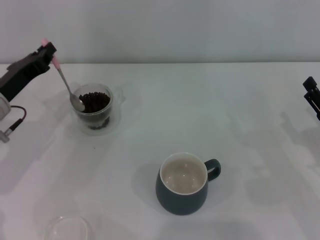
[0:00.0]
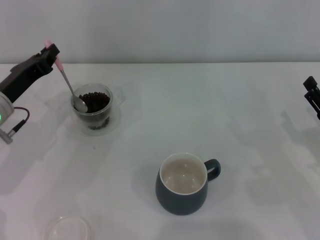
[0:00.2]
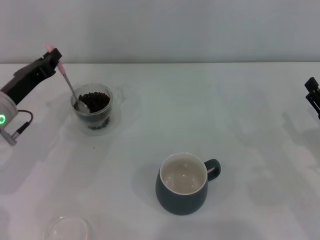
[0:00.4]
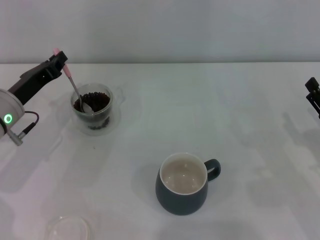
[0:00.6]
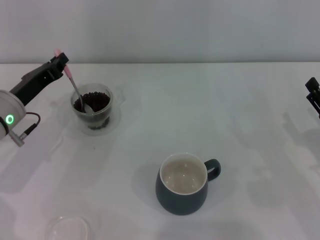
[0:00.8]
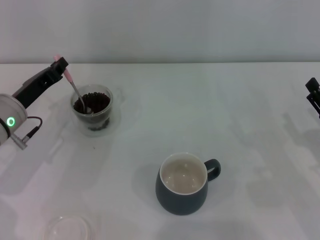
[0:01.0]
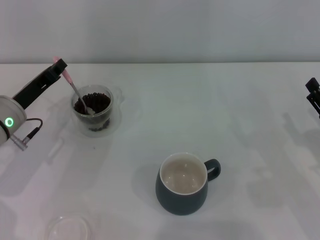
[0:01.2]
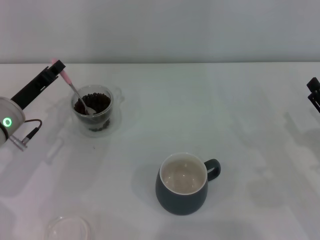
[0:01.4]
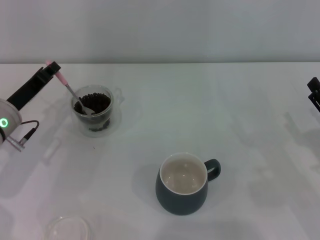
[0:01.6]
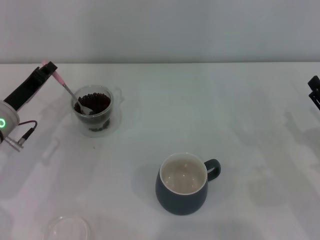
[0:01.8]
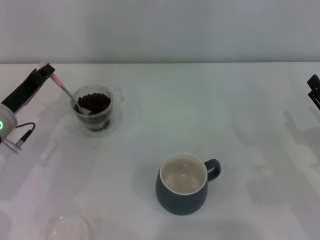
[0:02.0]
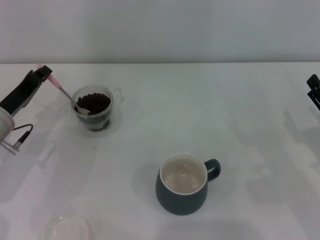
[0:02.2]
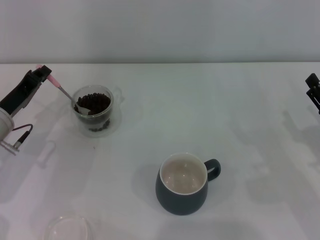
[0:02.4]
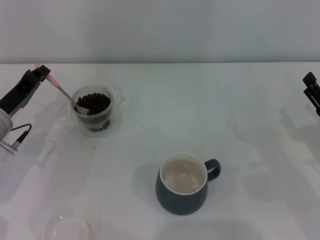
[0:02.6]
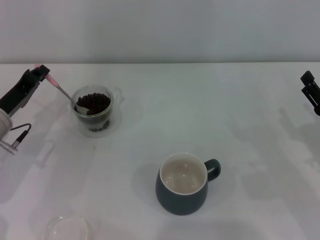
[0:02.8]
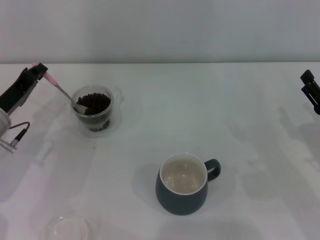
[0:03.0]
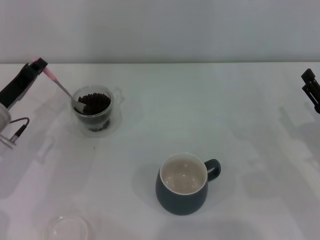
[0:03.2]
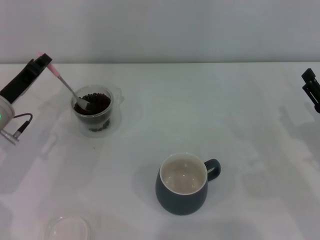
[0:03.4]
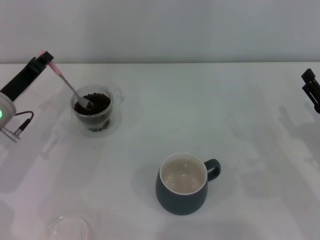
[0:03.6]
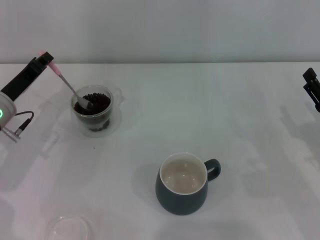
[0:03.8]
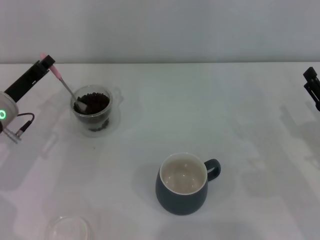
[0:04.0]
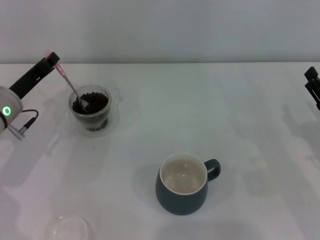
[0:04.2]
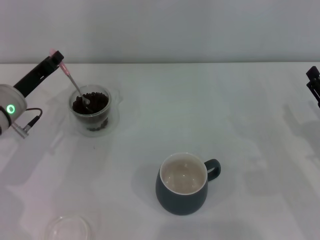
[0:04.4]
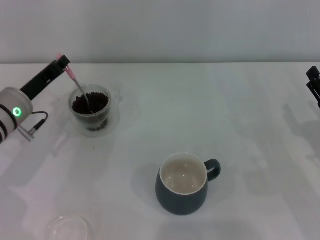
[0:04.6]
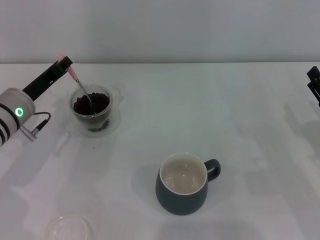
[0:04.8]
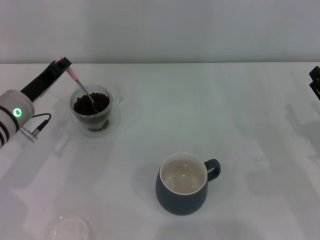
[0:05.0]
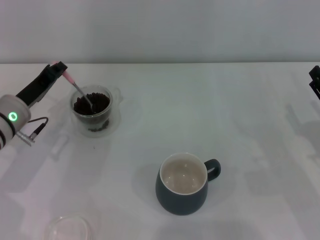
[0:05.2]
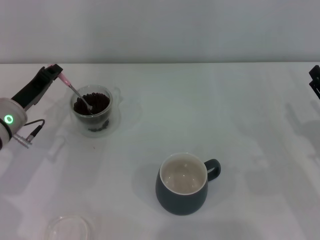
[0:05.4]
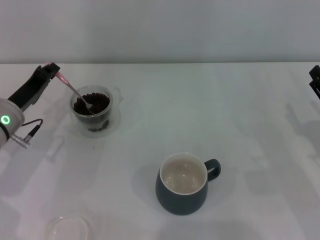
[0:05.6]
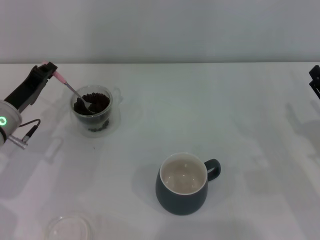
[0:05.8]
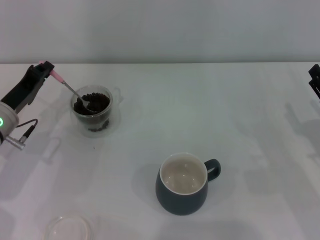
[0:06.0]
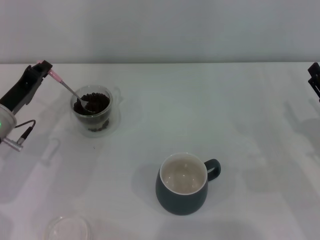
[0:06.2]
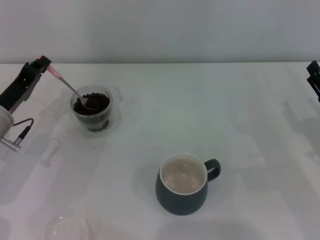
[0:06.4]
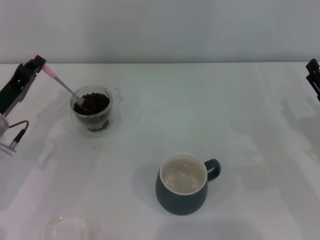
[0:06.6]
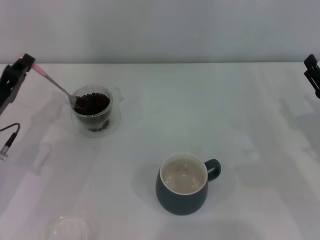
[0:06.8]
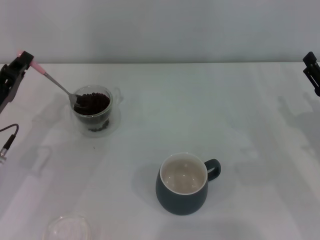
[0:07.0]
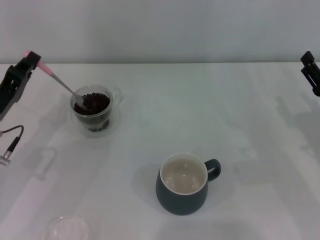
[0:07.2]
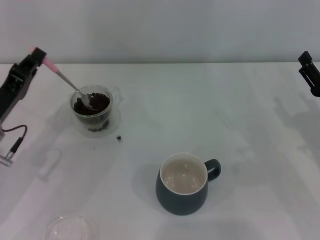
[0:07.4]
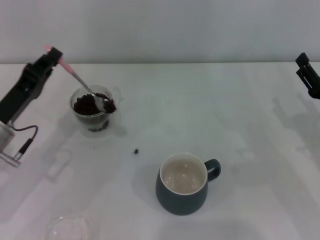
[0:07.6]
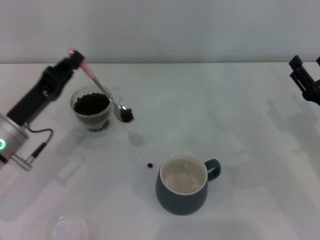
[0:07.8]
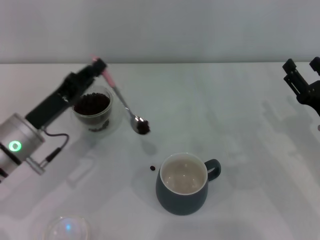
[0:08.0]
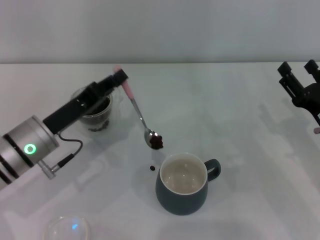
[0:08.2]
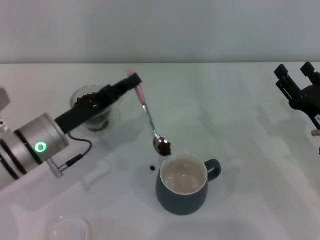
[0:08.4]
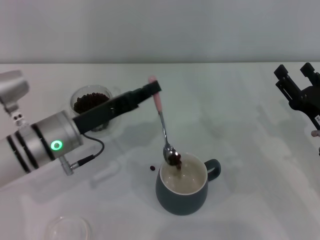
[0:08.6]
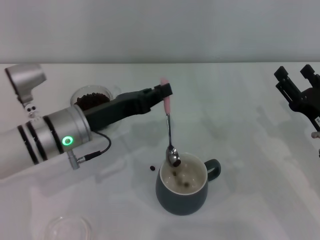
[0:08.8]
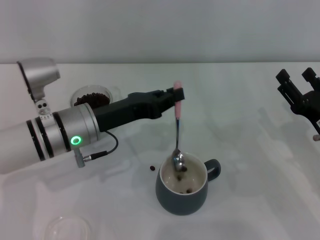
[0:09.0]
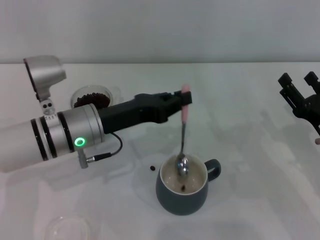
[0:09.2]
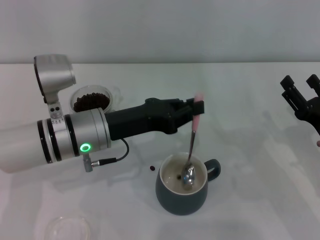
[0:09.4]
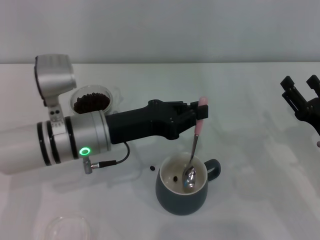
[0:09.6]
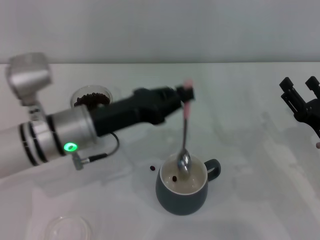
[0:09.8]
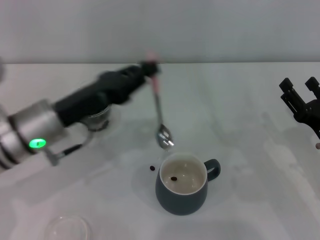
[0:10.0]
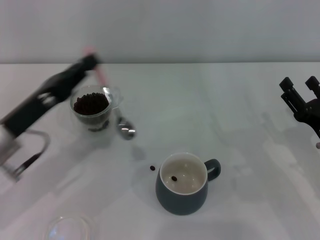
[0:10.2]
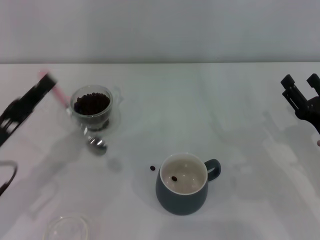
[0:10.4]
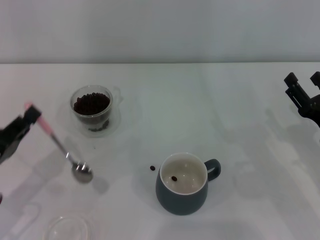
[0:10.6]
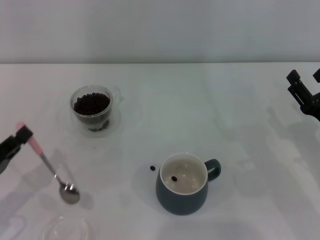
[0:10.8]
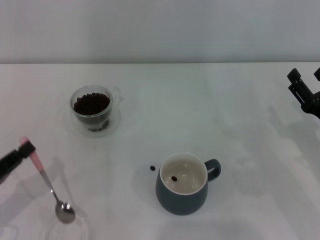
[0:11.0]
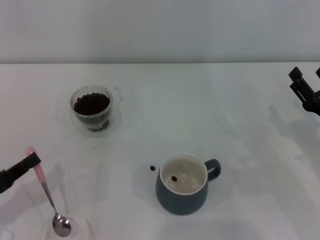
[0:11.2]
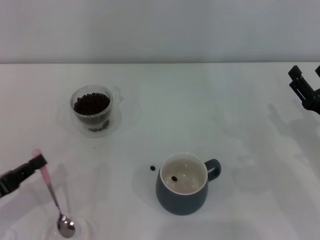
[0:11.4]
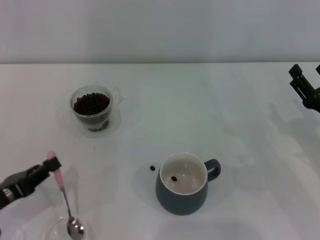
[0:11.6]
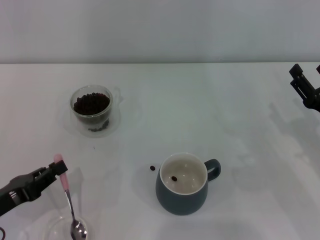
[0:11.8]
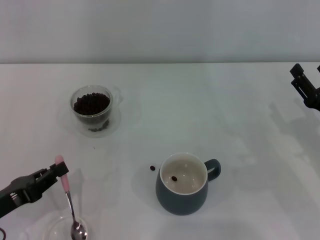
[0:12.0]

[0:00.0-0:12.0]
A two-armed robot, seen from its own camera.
Task of the whole recording: Use a pink spoon to take out the coffee beans from the glass and pour them into the gray cup.
Step, 0:00.0 to 0:09.8: Scoop a spoonful of beans into the cup with the right gripper.
0:01.6 to 0:06.0: The grippers make only small movements.
0:07.6 to 0:09.0: The left gripper shifts some 10 cm to the right.
0:09.0 to 0:10.4: The left gripper heads to the left and backward, covering roughly 15 cm.
0:10.4 to 0:12.0: The left gripper changes place by roughly 5 cm.

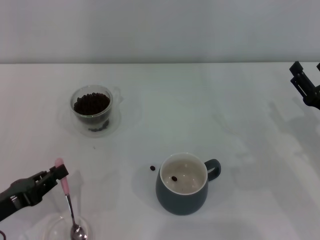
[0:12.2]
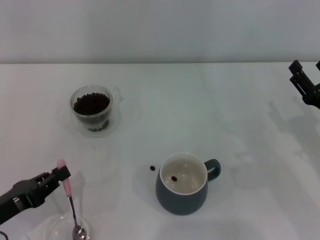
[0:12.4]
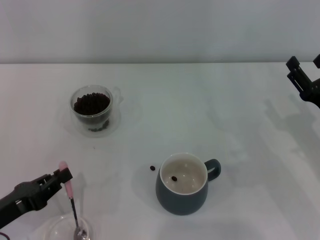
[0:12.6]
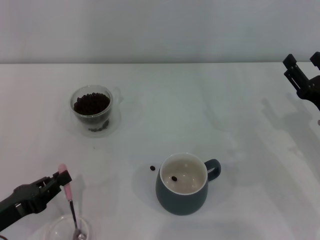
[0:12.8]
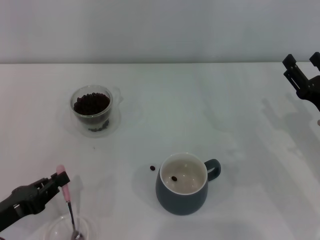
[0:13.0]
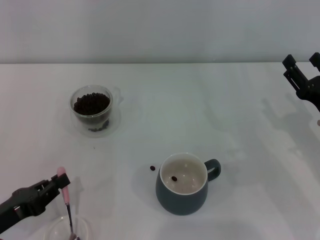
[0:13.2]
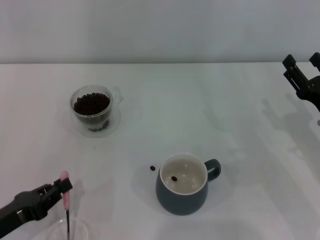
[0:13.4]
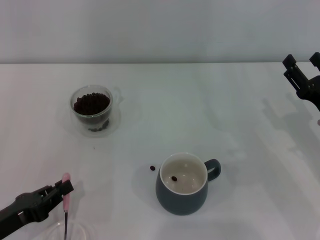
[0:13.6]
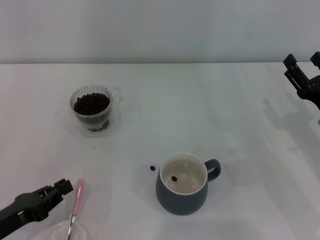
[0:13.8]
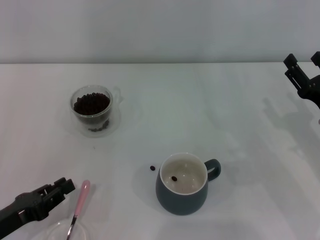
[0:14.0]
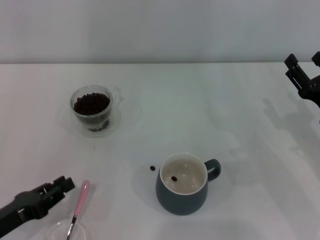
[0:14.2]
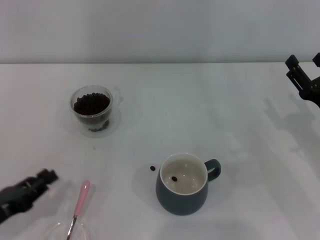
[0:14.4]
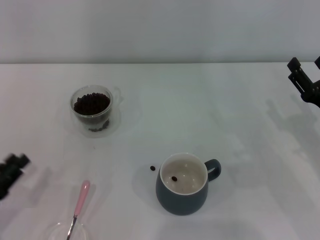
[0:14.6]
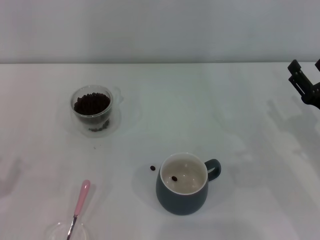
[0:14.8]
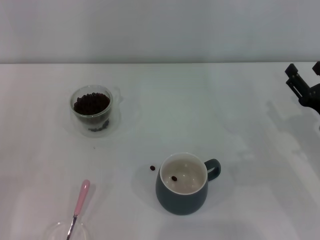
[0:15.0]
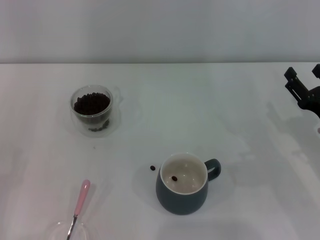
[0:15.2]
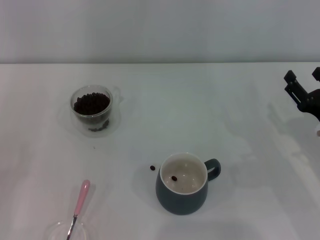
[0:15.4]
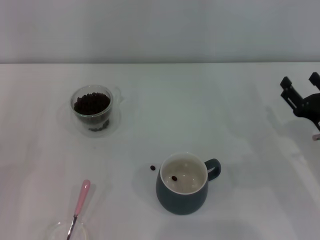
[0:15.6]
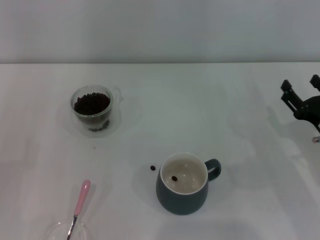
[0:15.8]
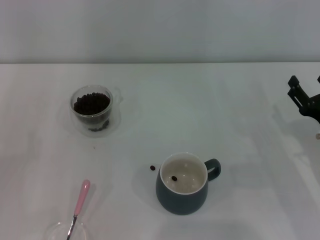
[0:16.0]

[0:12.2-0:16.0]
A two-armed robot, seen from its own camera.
Task of the whole recording: Use a pink spoon to take out the coffee beans from the glass and pour them into the gray cup.
Step, 0:12.2 to 0:14.2: Place the spoon back in its original place with the right gripper.
0:12.2 to 0:13.4: The grippers stay close to where they were, moving slightly.
0:13.4 to 0:14.8: The left gripper shifts by roughly 5 cm, and opens up.
